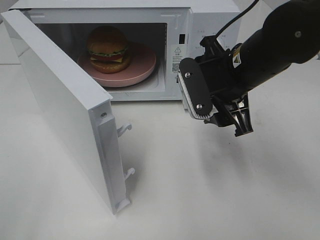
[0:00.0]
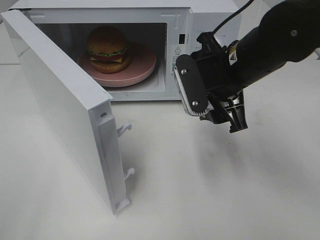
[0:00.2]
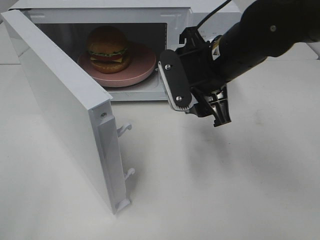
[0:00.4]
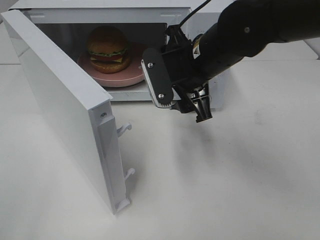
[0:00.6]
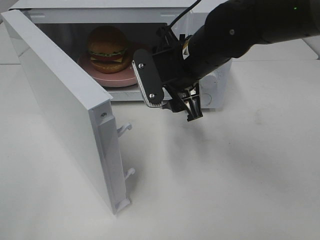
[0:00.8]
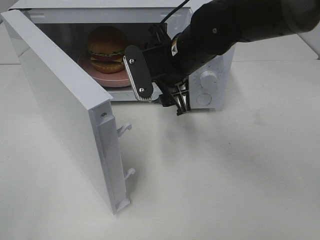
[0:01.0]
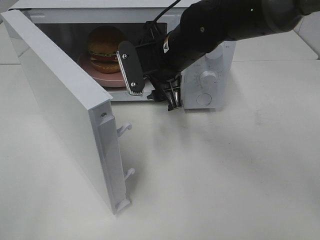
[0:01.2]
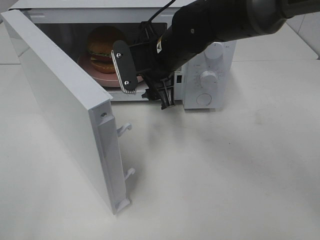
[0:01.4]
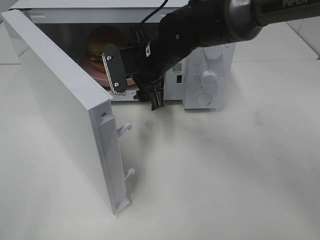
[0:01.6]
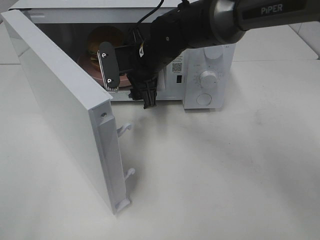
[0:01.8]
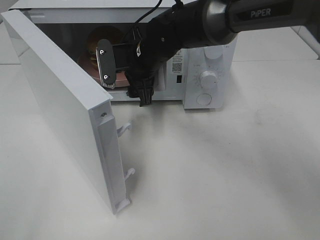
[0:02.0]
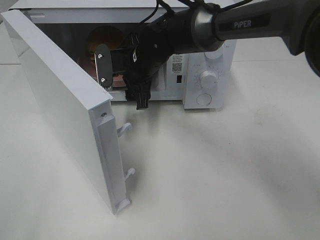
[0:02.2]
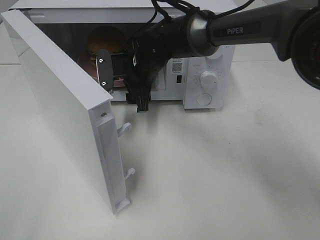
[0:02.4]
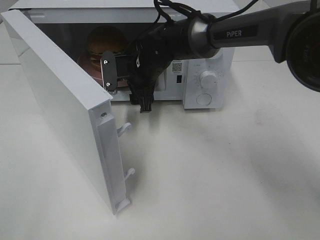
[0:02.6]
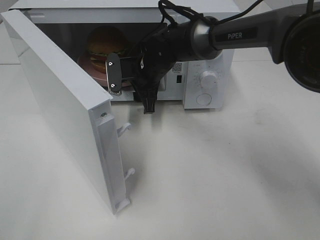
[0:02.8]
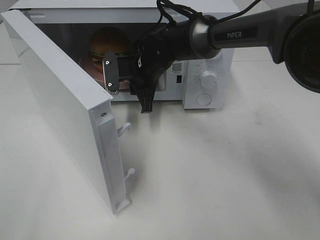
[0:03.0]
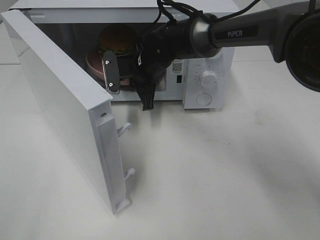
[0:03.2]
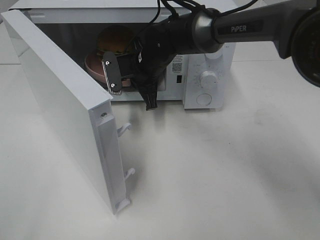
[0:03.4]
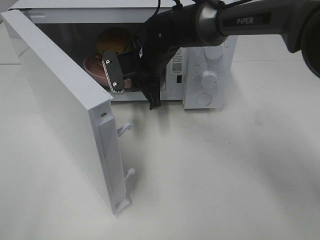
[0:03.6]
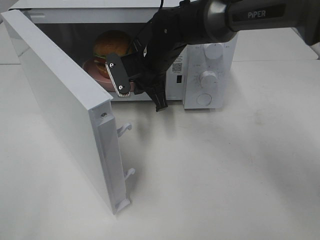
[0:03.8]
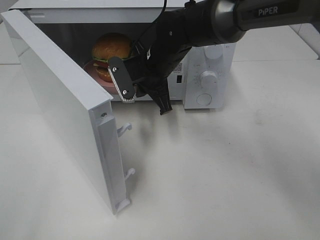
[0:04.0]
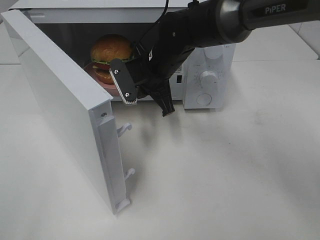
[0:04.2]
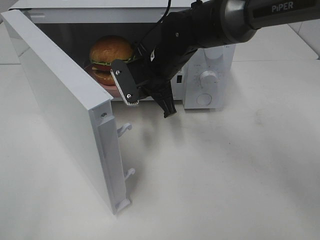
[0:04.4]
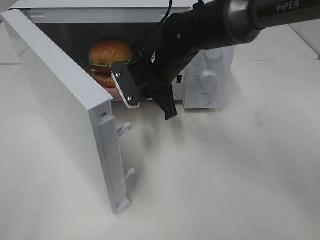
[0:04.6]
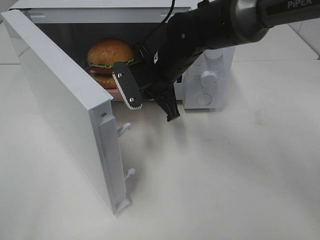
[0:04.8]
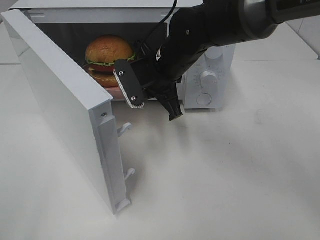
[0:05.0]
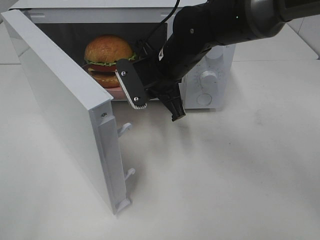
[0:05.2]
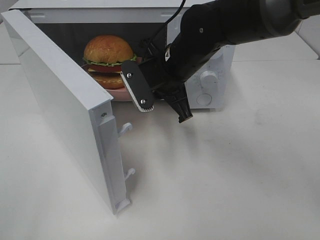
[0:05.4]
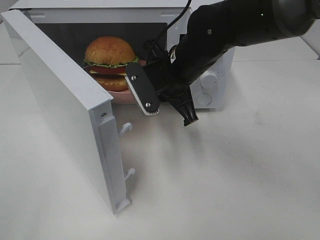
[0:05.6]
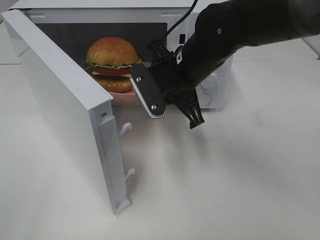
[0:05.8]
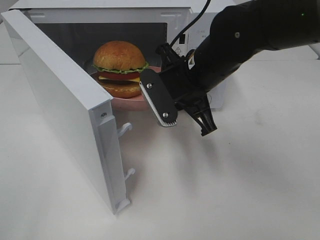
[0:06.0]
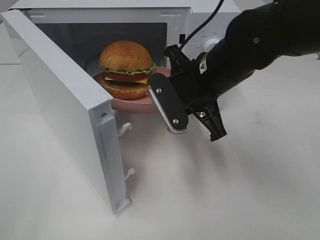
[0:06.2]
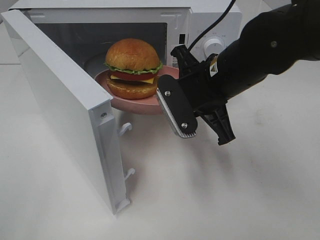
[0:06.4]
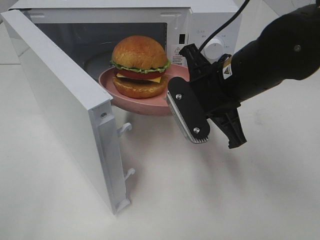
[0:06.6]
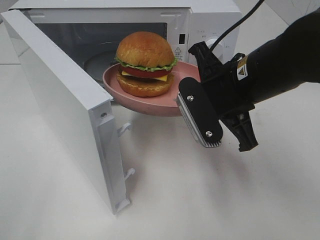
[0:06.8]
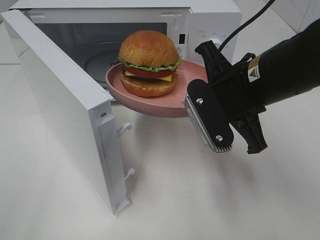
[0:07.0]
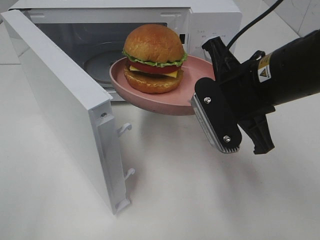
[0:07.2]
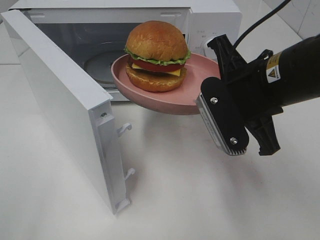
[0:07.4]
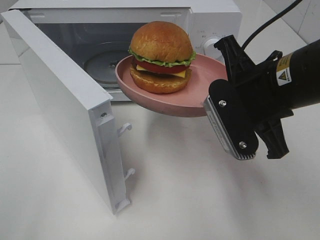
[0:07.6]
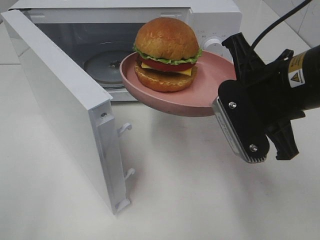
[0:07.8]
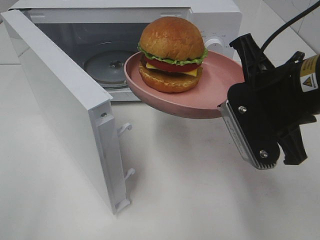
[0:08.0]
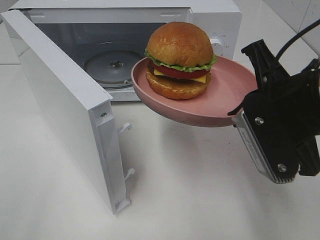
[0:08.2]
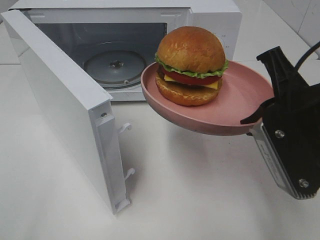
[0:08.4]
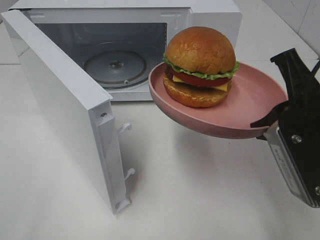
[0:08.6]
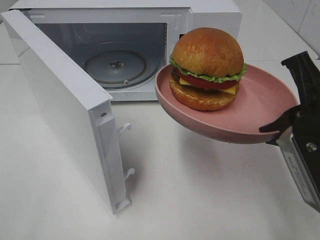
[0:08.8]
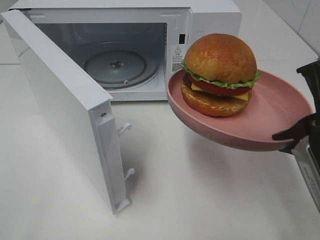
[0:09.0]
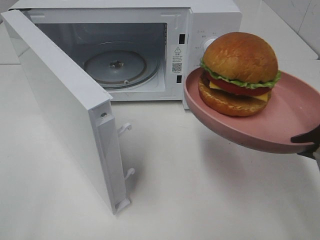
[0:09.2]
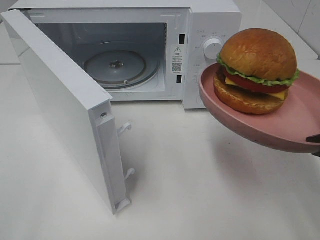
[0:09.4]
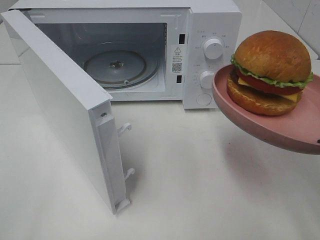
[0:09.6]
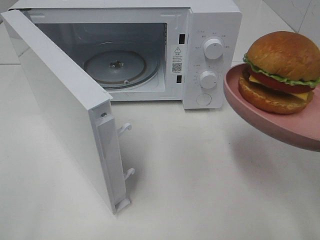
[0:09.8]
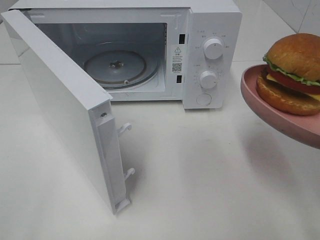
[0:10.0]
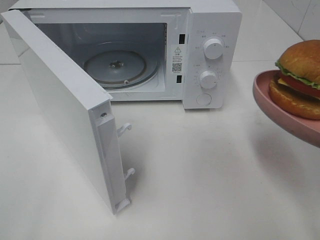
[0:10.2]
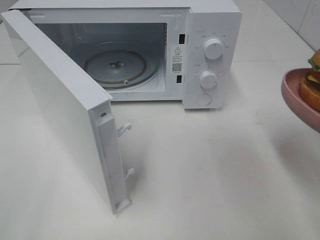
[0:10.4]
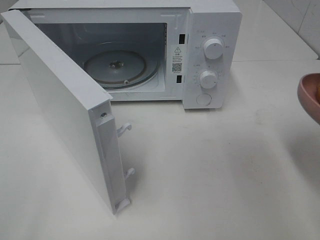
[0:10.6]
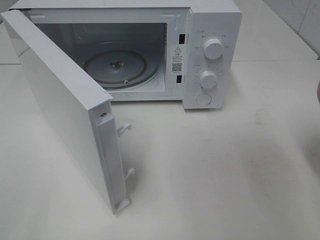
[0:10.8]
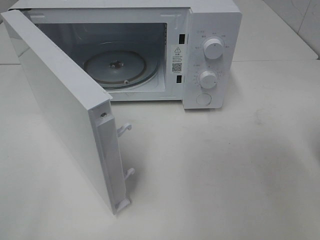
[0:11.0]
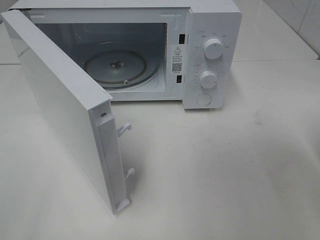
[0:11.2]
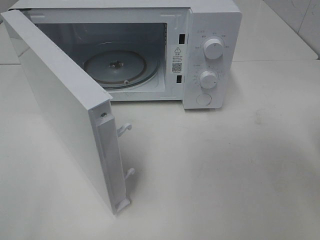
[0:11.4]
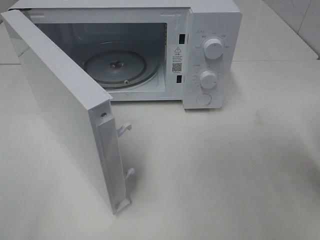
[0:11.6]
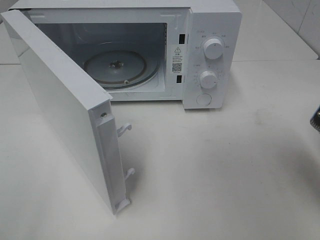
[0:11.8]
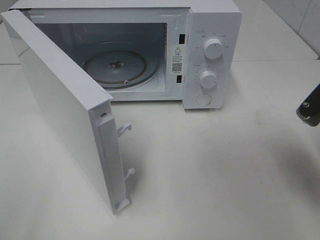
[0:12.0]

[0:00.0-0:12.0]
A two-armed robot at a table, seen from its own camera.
Task of the whole recording: Heat the burger.
Step, 0:00.0 to 0:03.0: Right hand: grab the plate with the hamburger.
0:00.0 to 0:01.6: The right gripper shifts roughly 15 cm to the left and forward.
0:01.6 to 0:03.0: The right gripper moves forward and downward, roughly 10 cm, and closes up.
0:03.0 to 0:04.4: The right gripper changes place by roughly 5 cm.
0:04.4 to 0:06.0: The right gripper travels backward and to the right by some 10 cm.
0:06.0 to 0:07.6: The right gripper heads backward and to the right, covering about 10 cm.
0:07.6 to 0:09.0: The right gripper goes some 10 cm backward and to the right.
0:09.0 to 0:10.4: The right gripper shifts some 5 cm to the right.
0:10.4 to 0:12.0: The right gripper travels forward by about 5 cm.

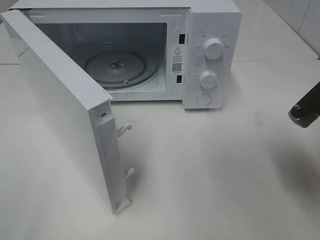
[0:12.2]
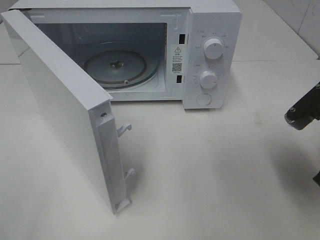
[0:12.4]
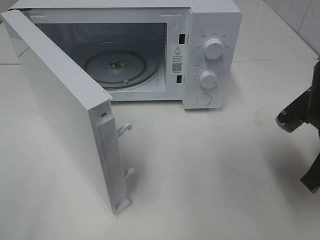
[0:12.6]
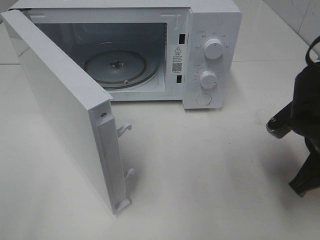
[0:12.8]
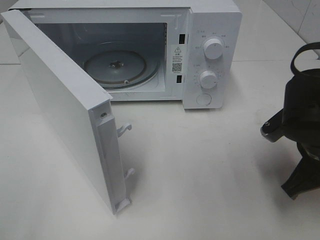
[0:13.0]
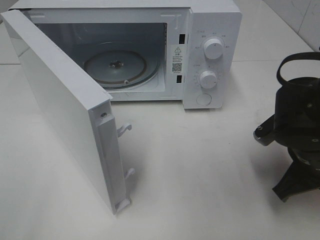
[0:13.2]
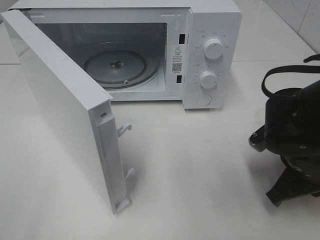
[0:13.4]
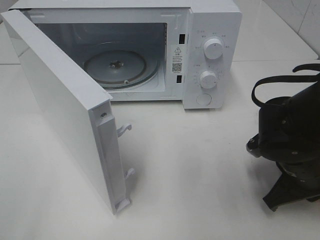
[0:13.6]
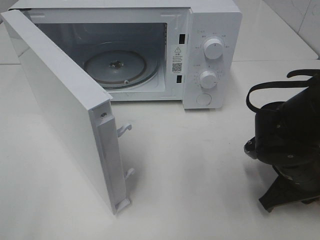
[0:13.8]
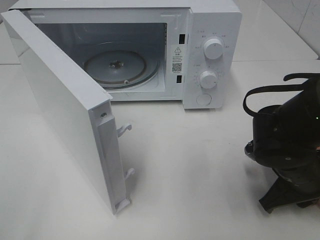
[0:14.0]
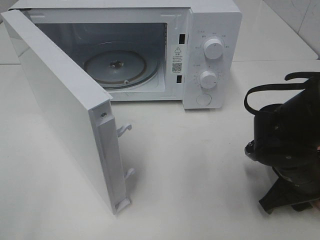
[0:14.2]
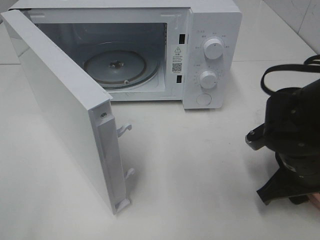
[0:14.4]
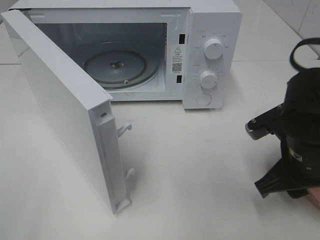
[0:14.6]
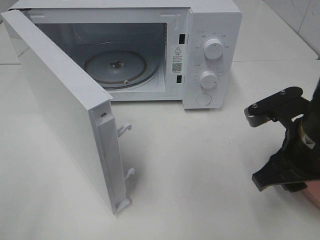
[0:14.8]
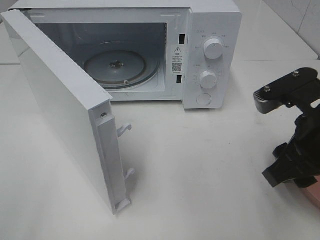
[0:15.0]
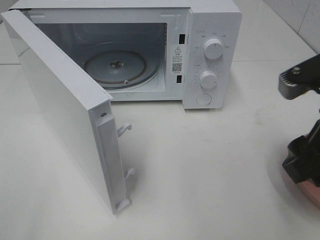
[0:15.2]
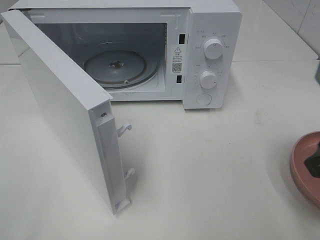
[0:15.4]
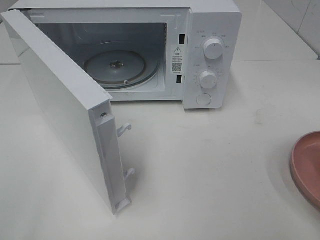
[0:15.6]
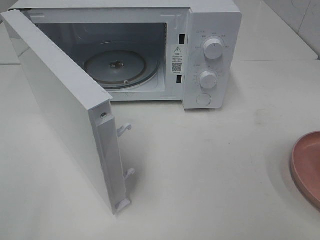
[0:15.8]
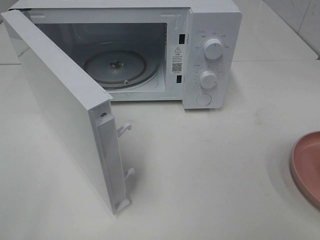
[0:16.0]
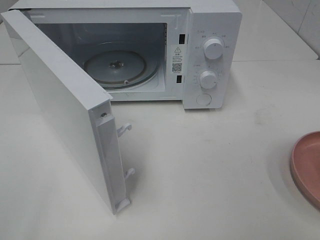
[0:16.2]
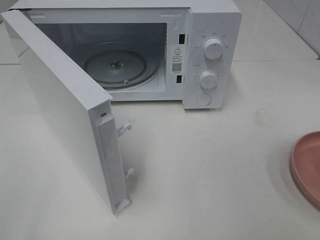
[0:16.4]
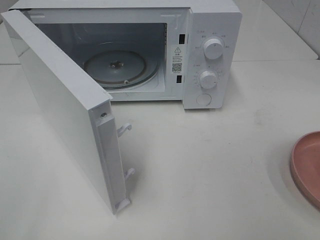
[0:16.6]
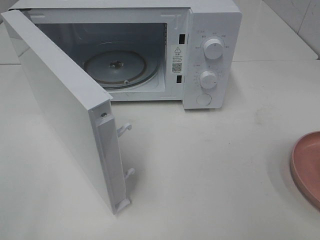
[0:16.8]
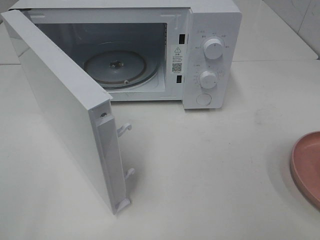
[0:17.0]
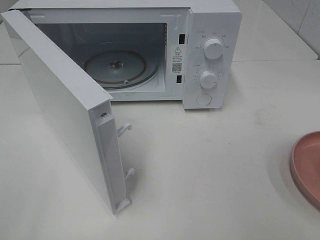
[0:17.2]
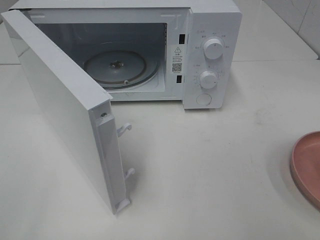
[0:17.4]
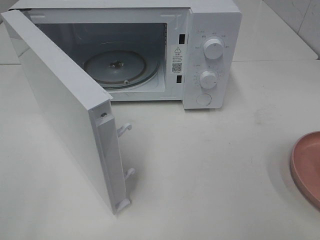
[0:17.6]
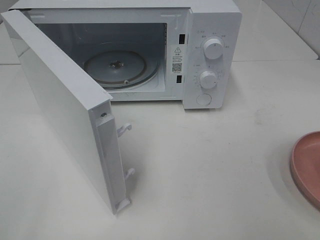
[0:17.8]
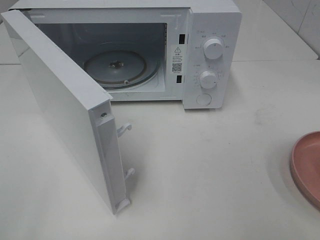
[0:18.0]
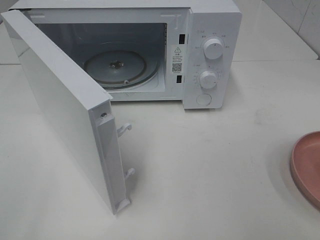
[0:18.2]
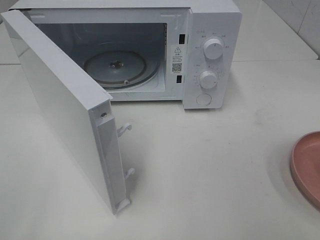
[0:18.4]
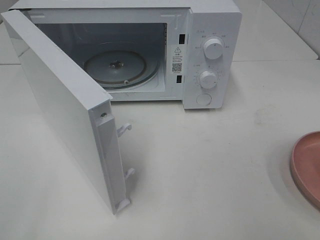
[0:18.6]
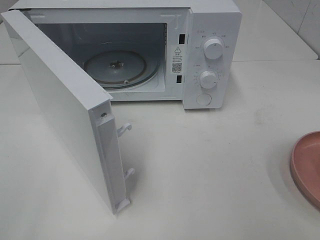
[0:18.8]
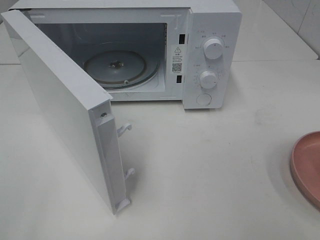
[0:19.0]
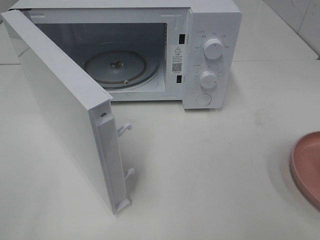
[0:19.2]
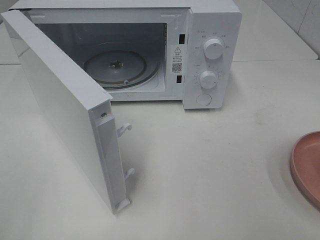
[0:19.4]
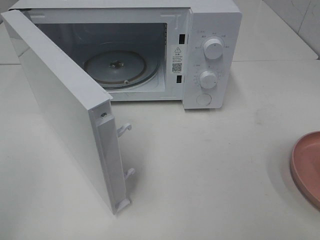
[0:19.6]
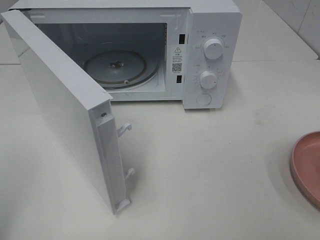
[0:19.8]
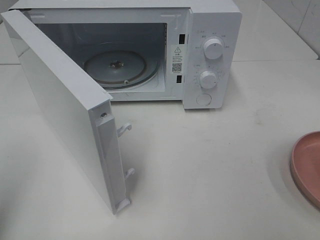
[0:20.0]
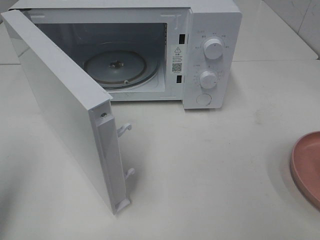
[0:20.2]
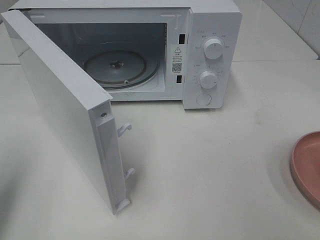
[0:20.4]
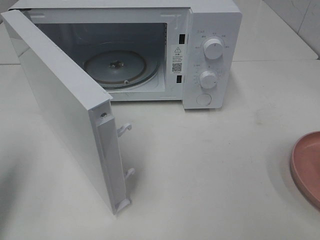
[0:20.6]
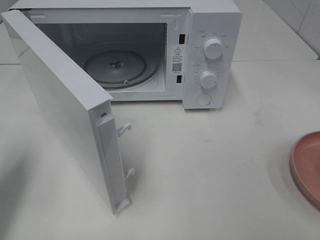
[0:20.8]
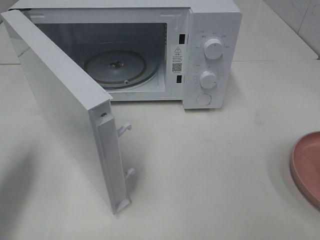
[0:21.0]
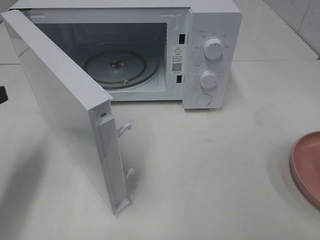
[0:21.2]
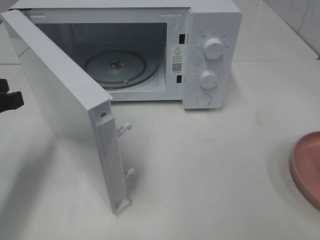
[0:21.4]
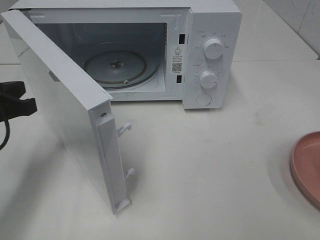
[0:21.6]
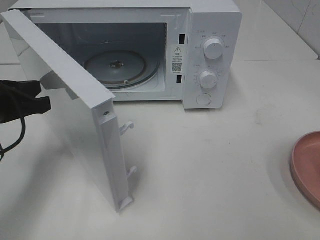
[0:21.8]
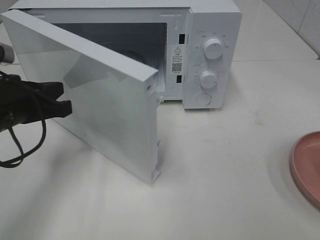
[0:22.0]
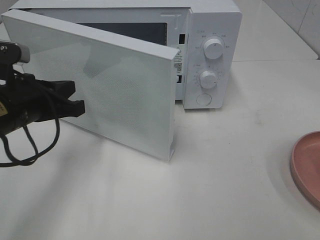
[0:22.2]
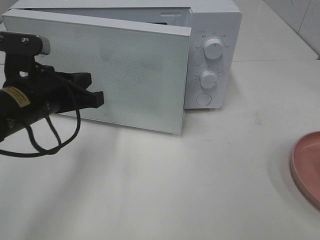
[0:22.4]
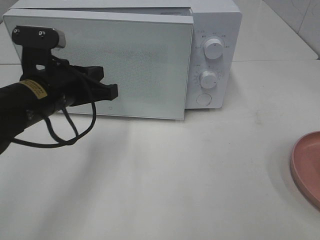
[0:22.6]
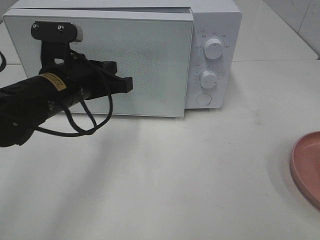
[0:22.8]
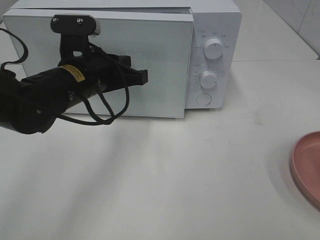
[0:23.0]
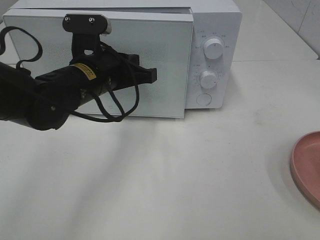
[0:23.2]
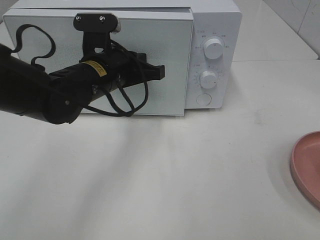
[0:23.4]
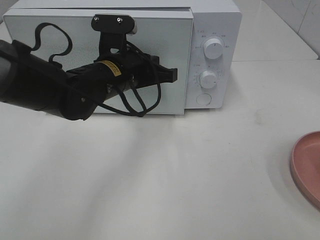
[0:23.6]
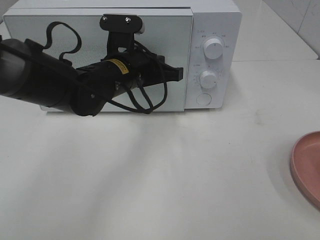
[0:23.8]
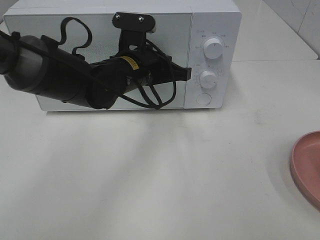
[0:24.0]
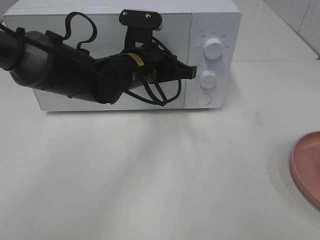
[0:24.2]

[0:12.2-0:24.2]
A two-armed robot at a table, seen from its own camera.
Task of the whole recording: Heat the burger.
Step, 0:12.2 to 0:14.2: Right hand: place the plate on the table.
0:12.2 to 0:13.8: The right gripper travels downward by some 10 cm.
0:13.8 to 0:15.2: The right gripper travels upward by some 15 cm, and opens up.
0:15.2 to 0:16.6: The right gripper shifts roughly 15 cm backward and to the right.
0:19.8 to 0:21.2: The left gripper shifts approximately 20 cm forward and downward.
0:21.2 to 0:22.6: The left gripper travels to the right and forward by approximately 15 cm.
0:22.6 to 0:24.2: The left gripper moves to the right and forward, approximately 15 cm.
